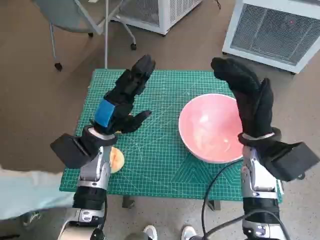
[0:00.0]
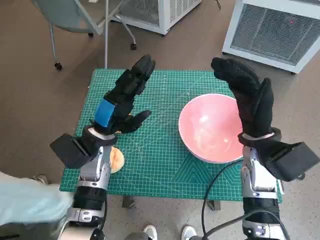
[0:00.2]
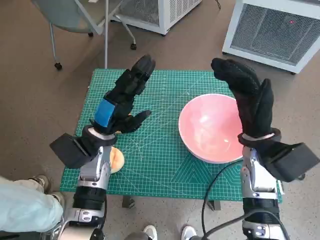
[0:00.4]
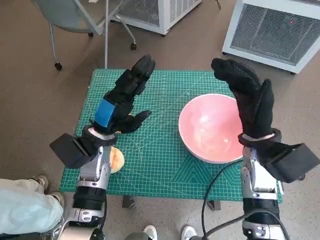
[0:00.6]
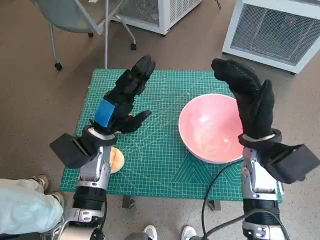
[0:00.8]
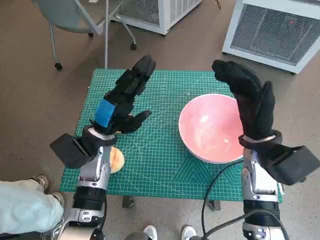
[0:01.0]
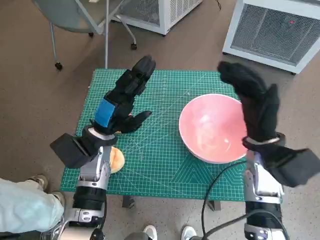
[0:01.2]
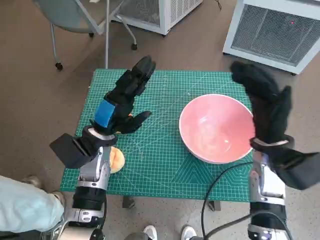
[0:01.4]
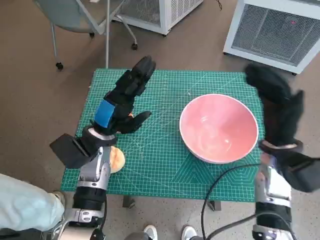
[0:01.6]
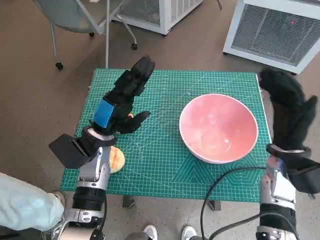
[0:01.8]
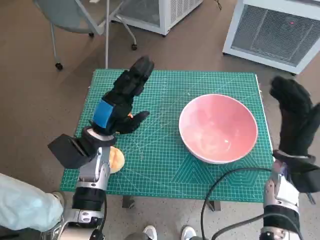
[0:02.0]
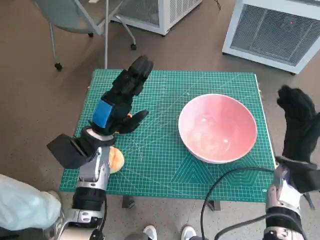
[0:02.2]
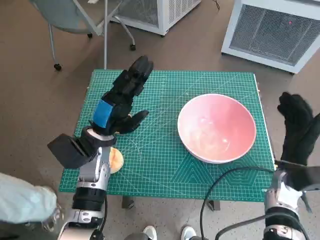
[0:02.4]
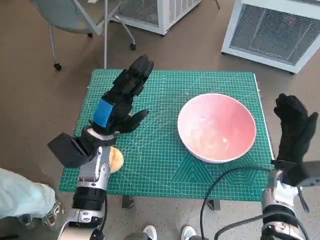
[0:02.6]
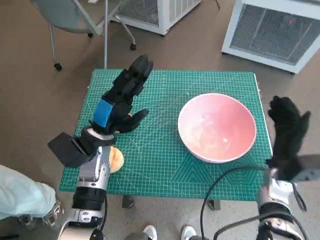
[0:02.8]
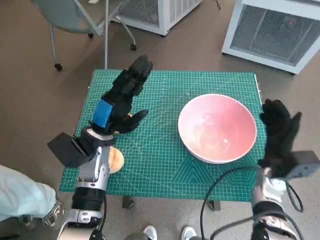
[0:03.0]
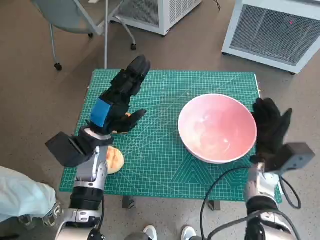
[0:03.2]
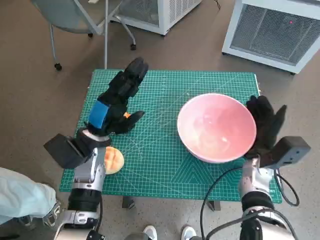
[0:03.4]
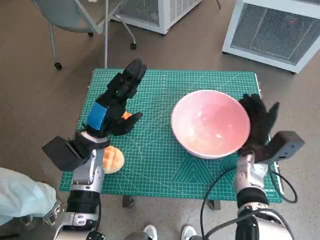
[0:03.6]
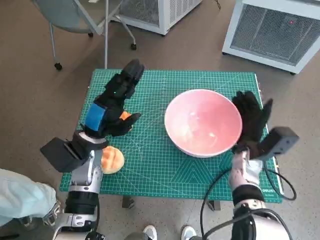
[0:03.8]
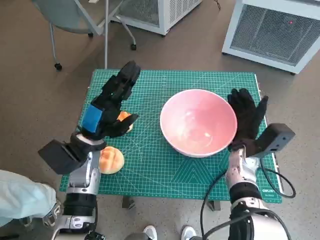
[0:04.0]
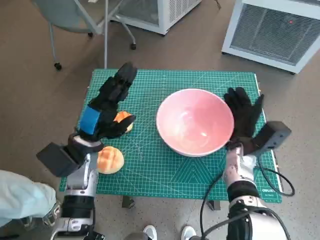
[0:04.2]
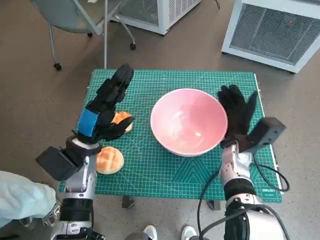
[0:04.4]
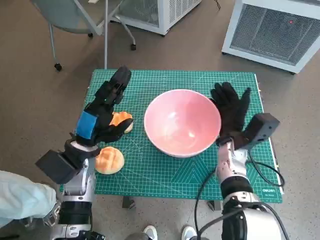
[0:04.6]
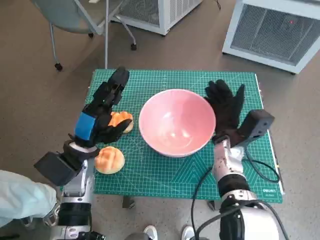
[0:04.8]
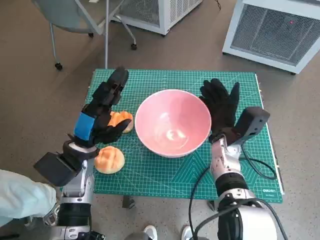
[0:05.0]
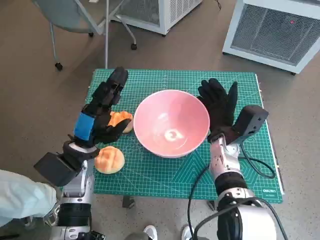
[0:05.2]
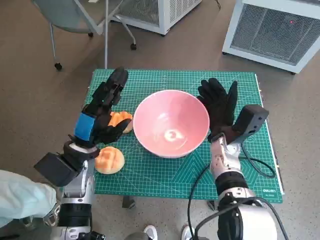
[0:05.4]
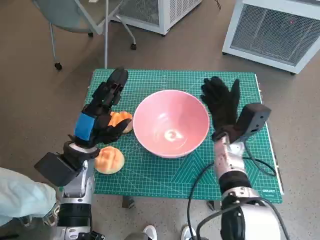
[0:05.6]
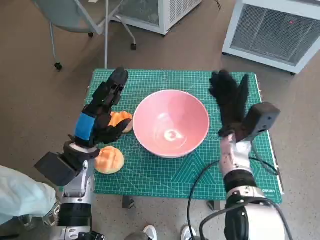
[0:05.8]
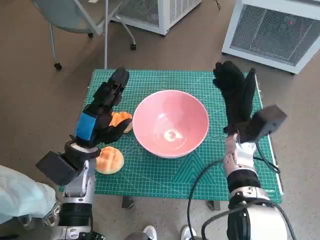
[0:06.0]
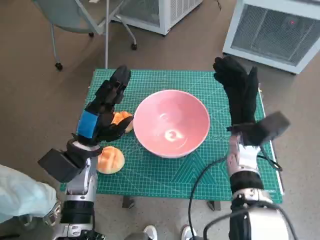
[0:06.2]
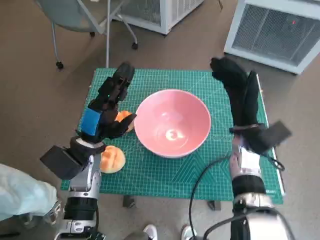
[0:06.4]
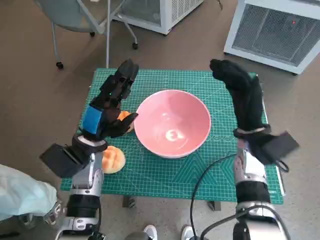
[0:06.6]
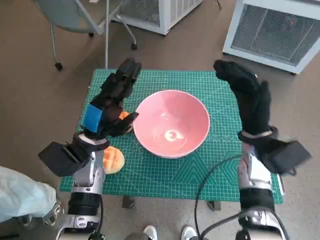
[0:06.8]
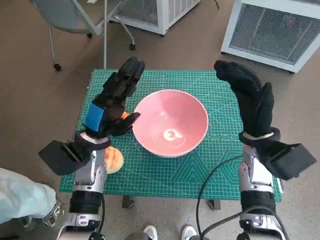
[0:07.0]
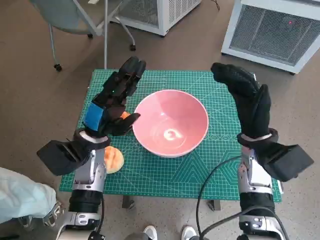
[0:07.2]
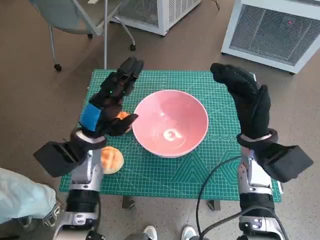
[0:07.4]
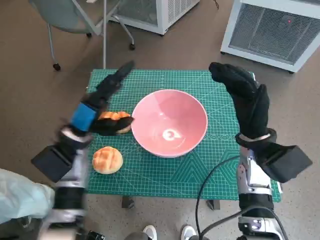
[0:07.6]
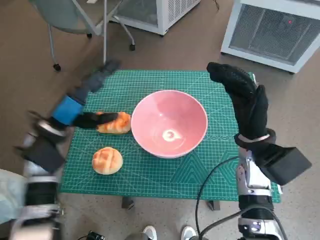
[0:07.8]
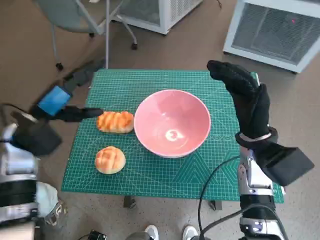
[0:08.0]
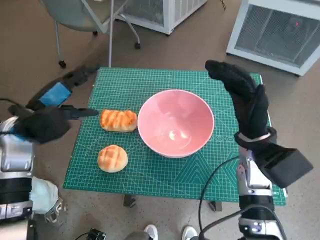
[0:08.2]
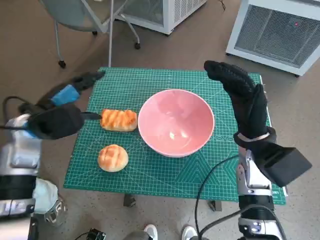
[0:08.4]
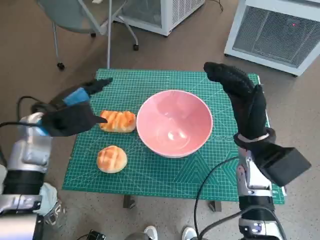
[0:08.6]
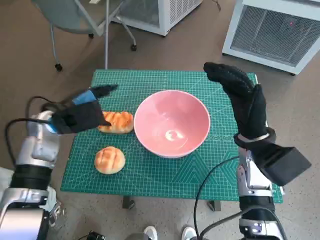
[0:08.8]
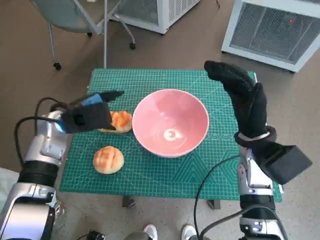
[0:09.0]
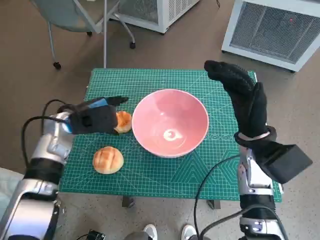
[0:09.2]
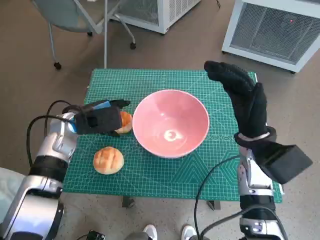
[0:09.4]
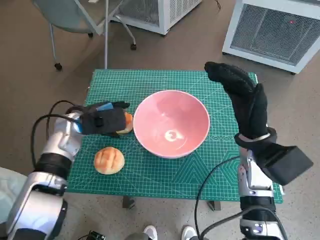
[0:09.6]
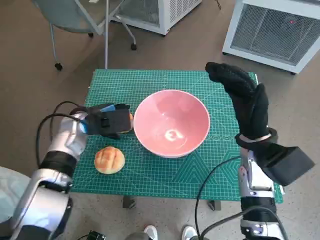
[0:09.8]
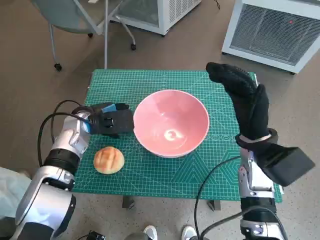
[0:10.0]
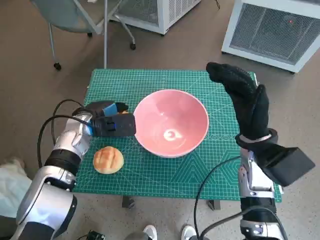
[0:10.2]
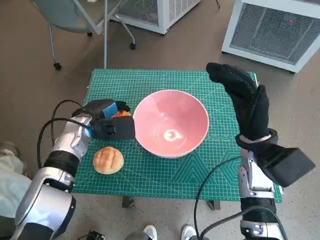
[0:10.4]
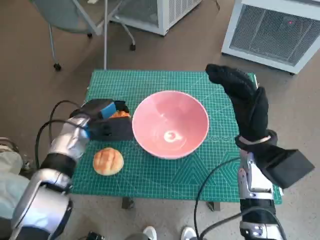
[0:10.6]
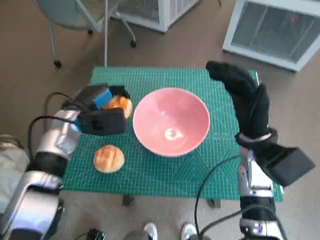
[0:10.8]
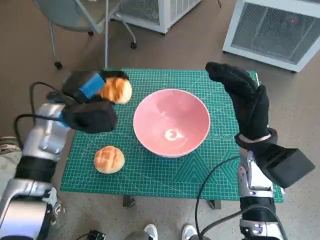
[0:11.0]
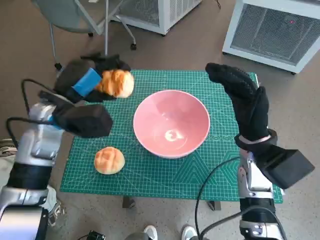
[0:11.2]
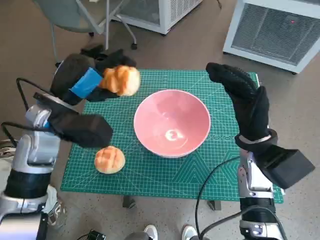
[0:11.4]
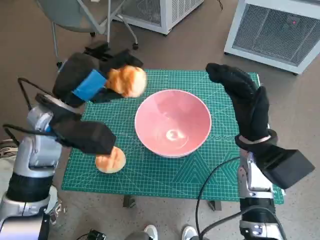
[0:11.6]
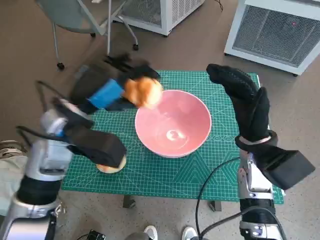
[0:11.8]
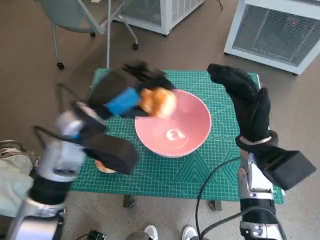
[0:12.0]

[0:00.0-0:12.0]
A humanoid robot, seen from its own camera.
Task of the whole recording: Push the bowl into the center of the table and put the bread into the bowl.
Step, 0:00.0 to 0:05.6: Move the pink bowl to the center of table with right hand.
Step, 0:05.8 to 0:10.0: Grasp the long bread with left hand.
0:01.6 to 0:03.0: The right hand travels downward by about 10 cm.
0:03.0 to 0:04.4: The right hand travels to the left by some 10 cm.
0:06.0 to 0:07.6: The right hand moves roughly 5 cm.
0:09.0 to 0:10.4: The left hand changes place by about 5 cm.
0:10.4 to 0:12.0: The left hand goes roughly 10 cm upward and backward.

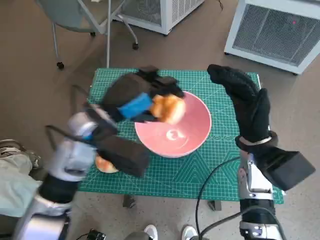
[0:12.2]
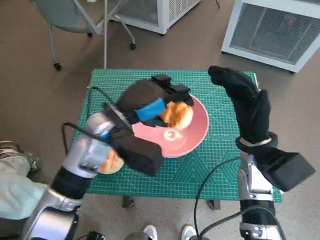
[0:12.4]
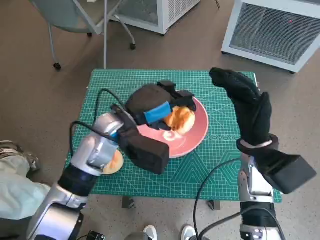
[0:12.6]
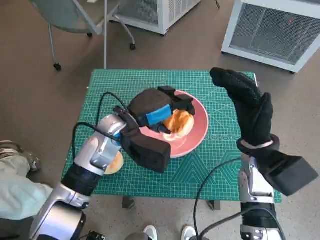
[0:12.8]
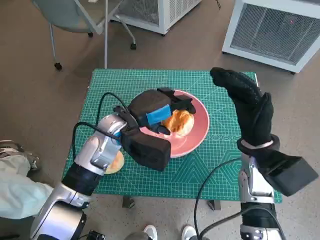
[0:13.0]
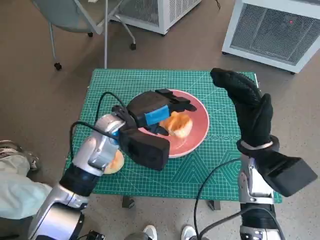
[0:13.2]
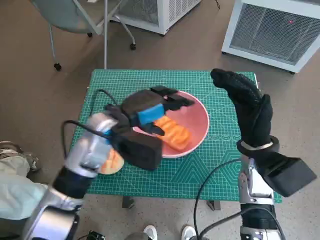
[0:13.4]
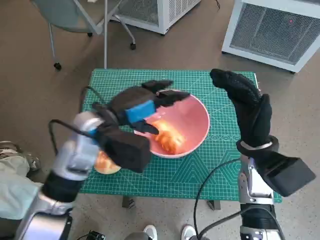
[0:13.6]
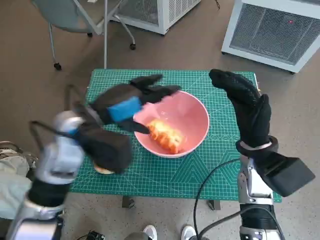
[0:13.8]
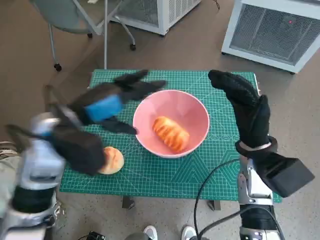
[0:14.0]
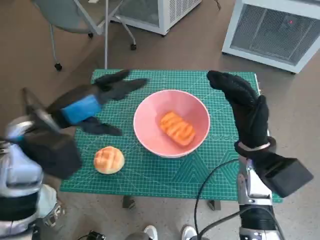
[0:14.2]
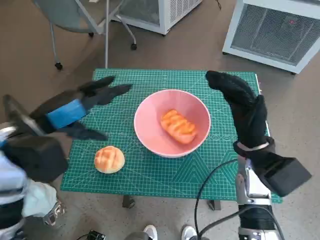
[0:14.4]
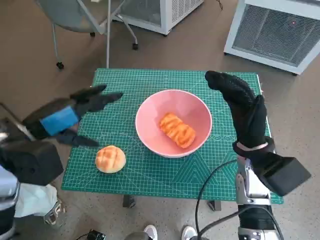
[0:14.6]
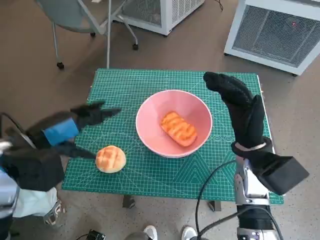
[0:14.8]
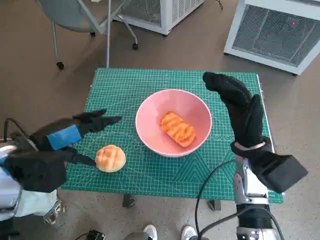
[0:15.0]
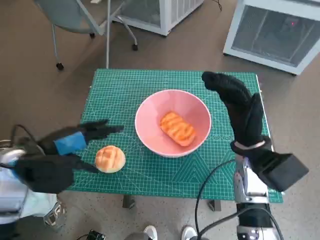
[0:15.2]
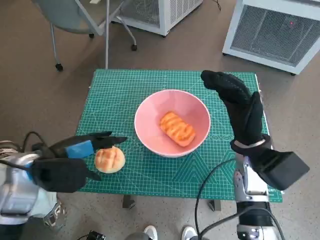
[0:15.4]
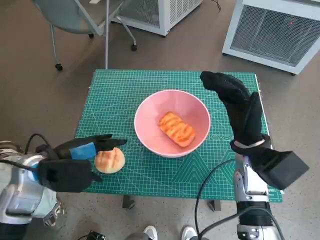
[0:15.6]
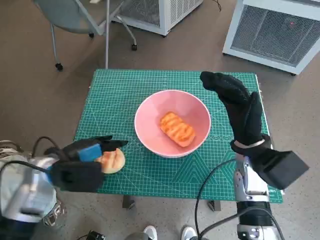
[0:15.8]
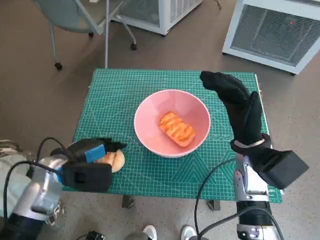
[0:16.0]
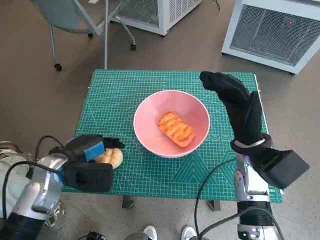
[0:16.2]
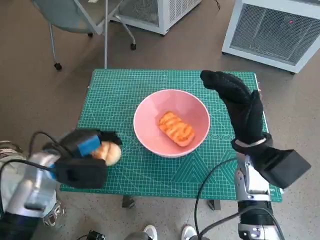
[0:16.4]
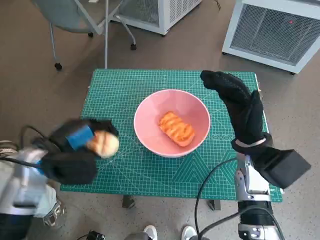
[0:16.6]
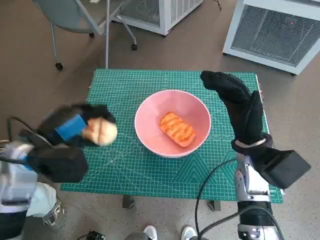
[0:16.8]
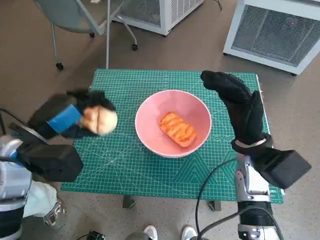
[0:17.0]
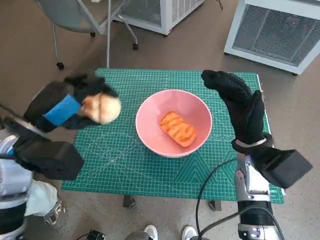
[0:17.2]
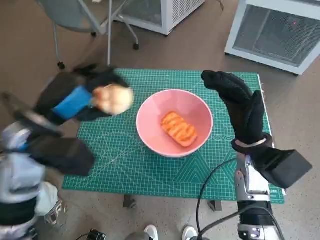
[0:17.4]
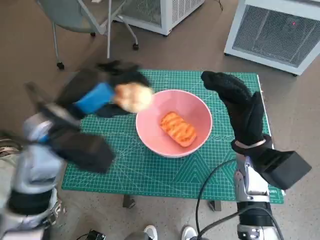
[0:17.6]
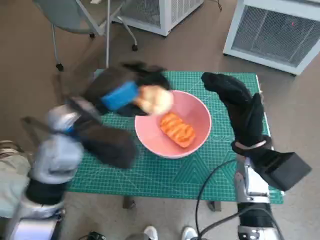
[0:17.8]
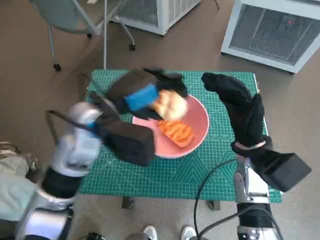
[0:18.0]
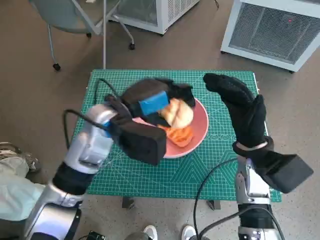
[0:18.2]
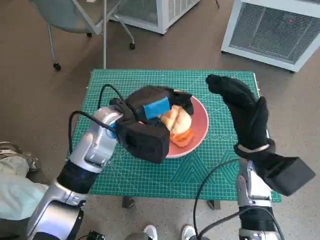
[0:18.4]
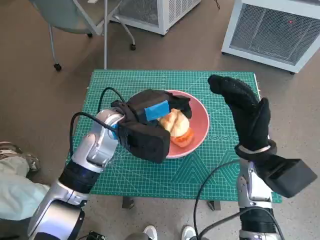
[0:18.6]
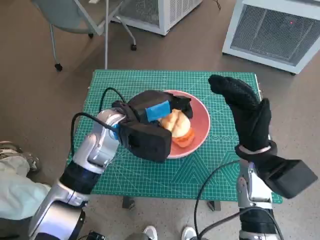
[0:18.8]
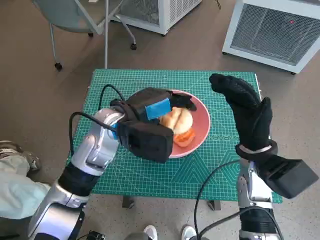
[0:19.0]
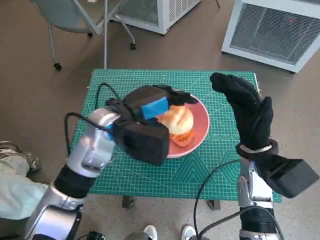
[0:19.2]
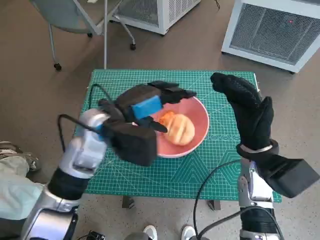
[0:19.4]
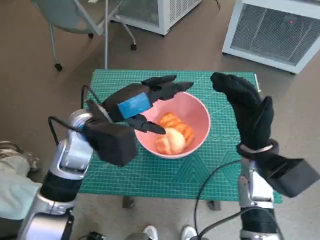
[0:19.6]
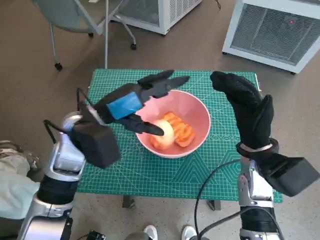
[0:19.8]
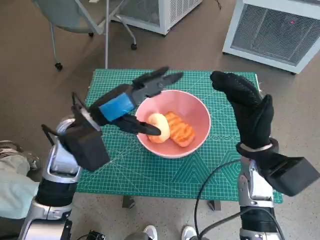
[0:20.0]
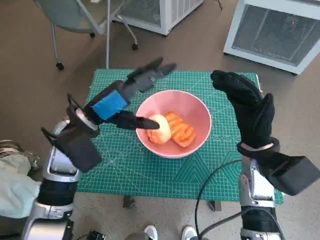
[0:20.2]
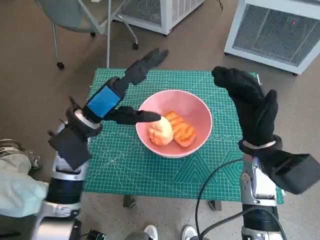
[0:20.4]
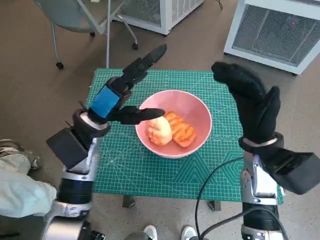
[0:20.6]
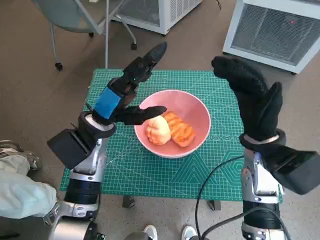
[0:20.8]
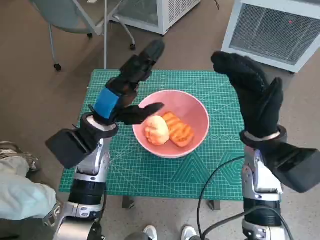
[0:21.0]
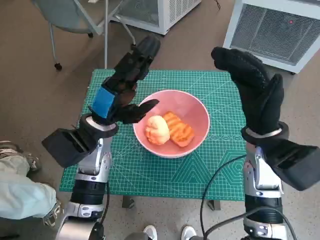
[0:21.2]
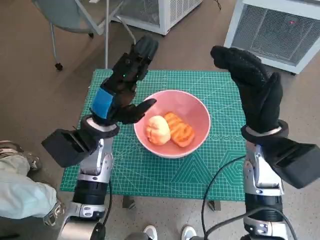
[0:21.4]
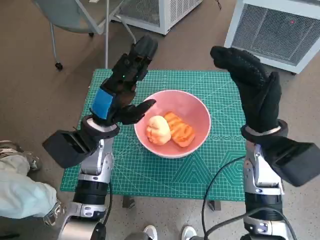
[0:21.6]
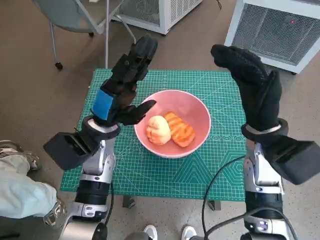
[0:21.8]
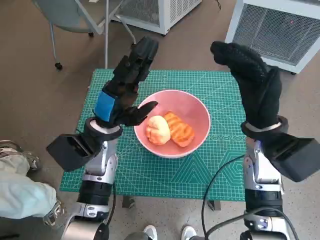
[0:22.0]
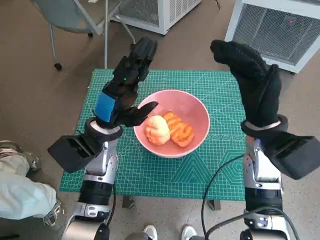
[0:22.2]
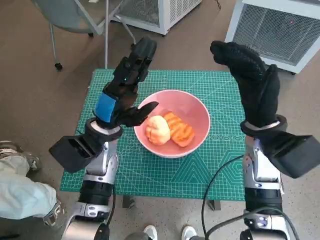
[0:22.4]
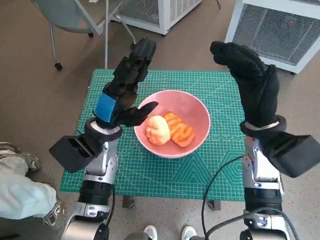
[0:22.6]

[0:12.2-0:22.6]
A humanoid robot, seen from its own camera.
Task of the whole recording: Push the bowl into the center of the table and put the bread into the bowl.
Step, 0:13.6 to 0:16.0: Grasp the round bread with left hand.
Step, 0:16.2 to 0:19.2: Place the round bread in pink bowl with left hand.
0:13.6 to 0:15.2: The left hand moves to the left and backward, some 15 cm.
0:16.6 to 0:18.2: The left hand travels to the right, upward and forward by some 15 cm.
0:21.2 to 0:22.6: There are only small adjustments of the hands.
